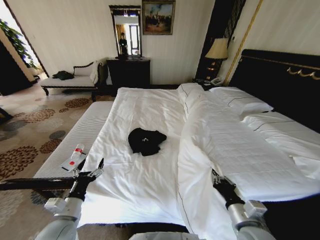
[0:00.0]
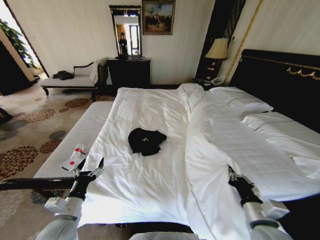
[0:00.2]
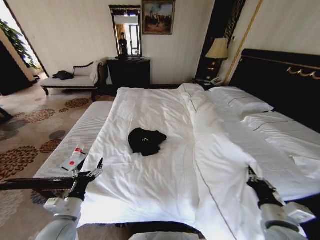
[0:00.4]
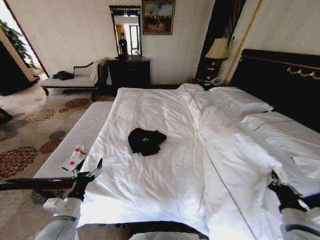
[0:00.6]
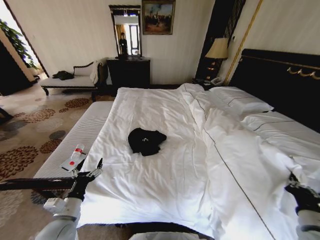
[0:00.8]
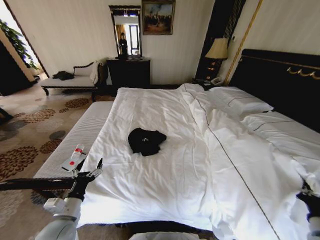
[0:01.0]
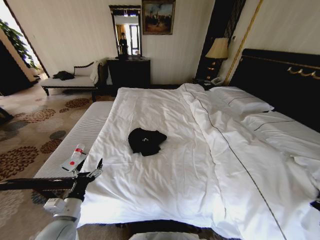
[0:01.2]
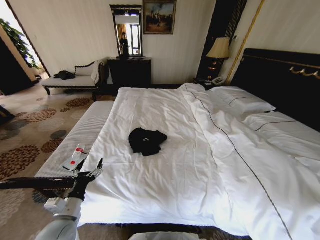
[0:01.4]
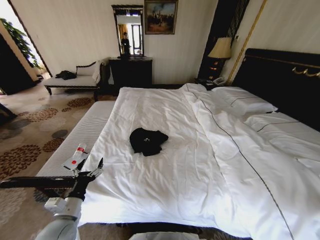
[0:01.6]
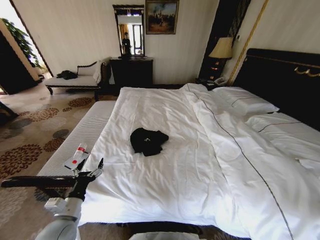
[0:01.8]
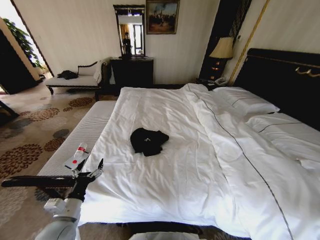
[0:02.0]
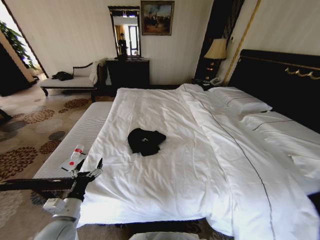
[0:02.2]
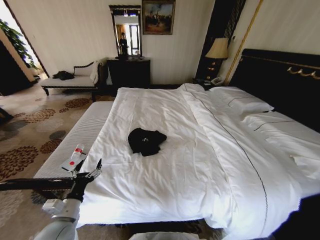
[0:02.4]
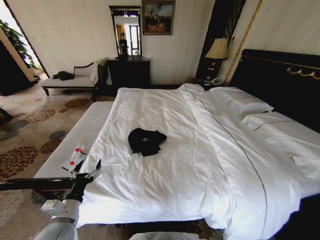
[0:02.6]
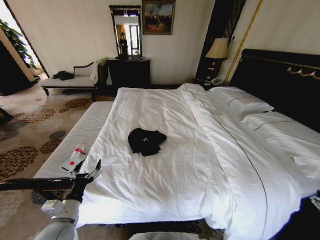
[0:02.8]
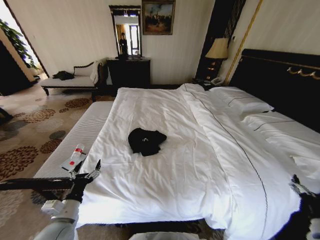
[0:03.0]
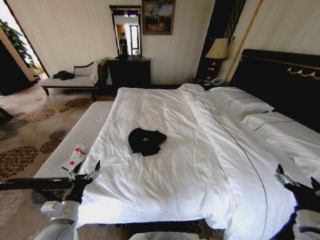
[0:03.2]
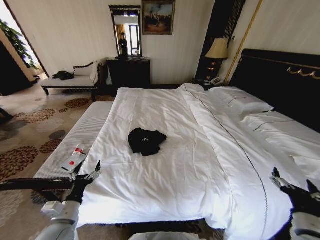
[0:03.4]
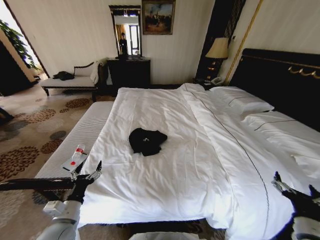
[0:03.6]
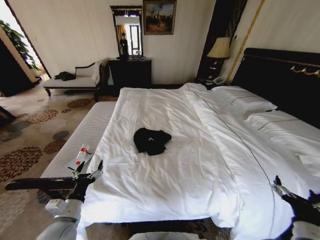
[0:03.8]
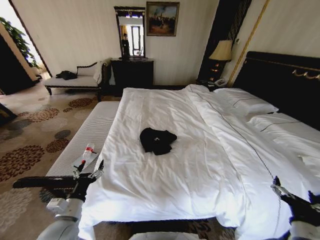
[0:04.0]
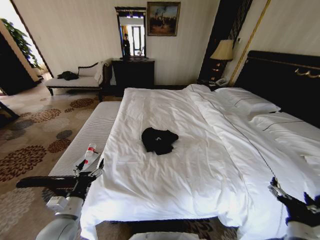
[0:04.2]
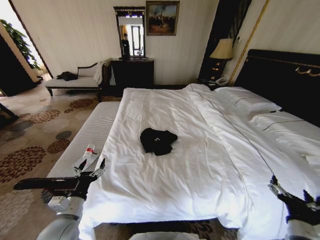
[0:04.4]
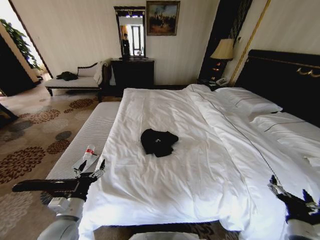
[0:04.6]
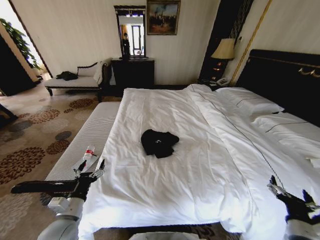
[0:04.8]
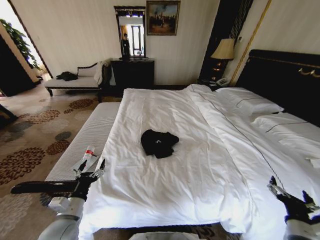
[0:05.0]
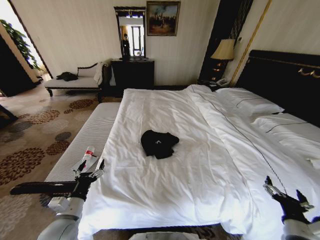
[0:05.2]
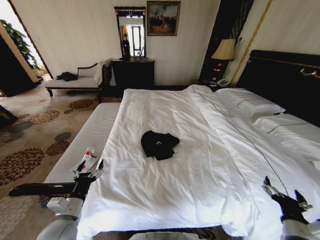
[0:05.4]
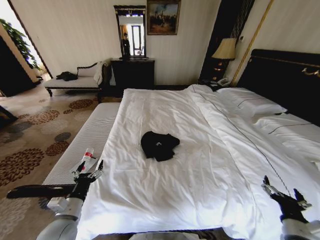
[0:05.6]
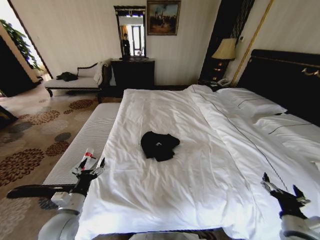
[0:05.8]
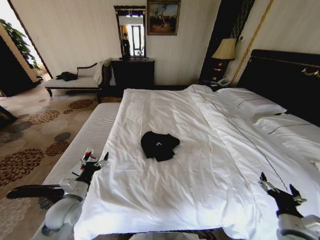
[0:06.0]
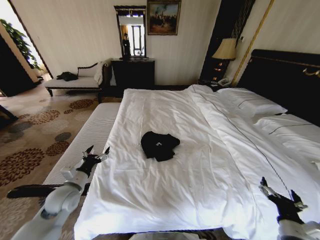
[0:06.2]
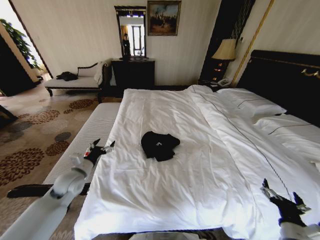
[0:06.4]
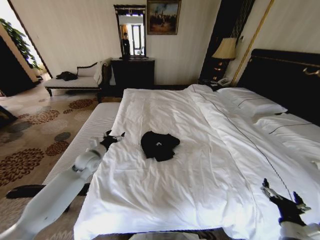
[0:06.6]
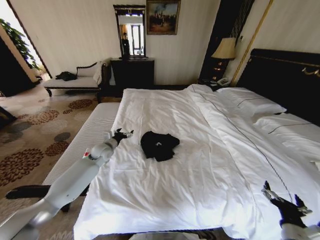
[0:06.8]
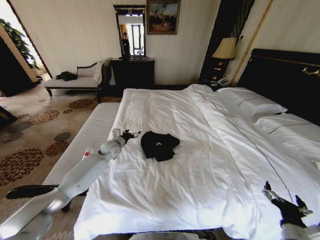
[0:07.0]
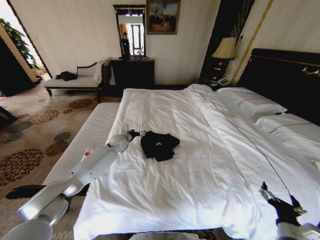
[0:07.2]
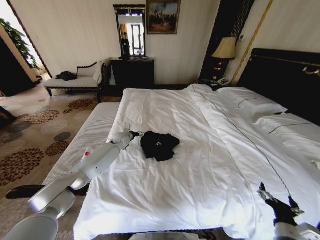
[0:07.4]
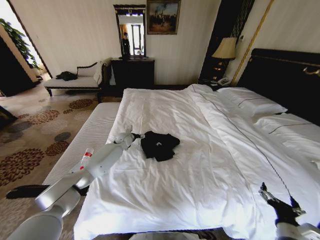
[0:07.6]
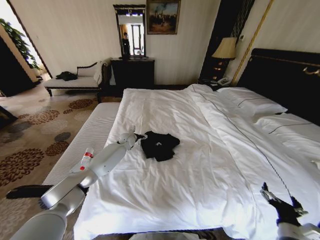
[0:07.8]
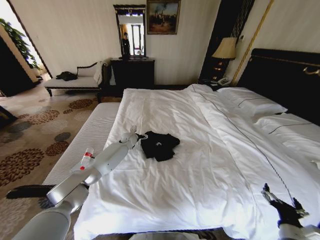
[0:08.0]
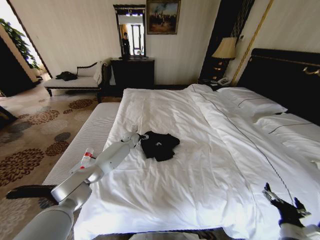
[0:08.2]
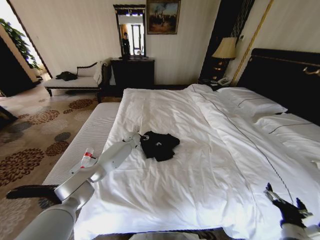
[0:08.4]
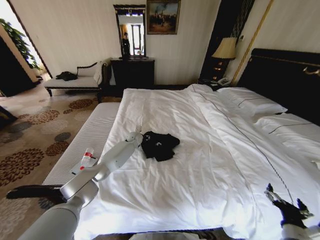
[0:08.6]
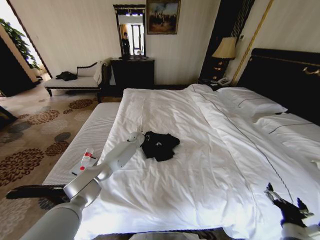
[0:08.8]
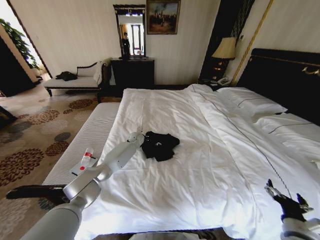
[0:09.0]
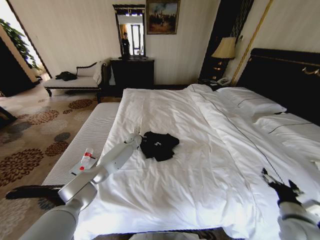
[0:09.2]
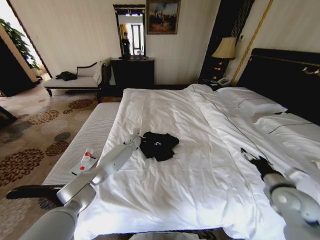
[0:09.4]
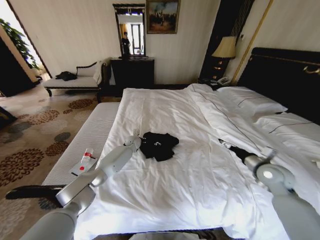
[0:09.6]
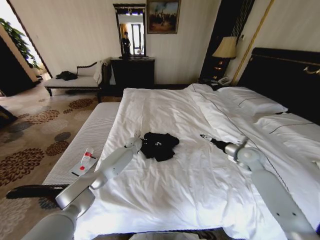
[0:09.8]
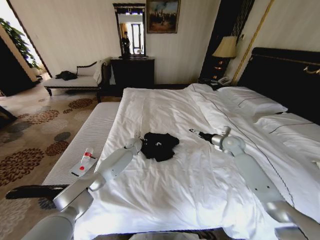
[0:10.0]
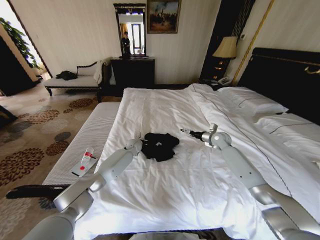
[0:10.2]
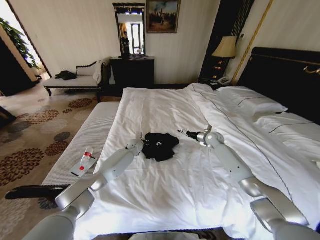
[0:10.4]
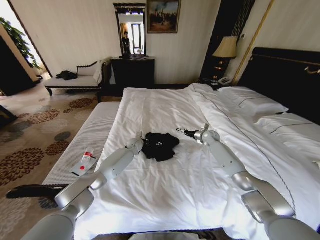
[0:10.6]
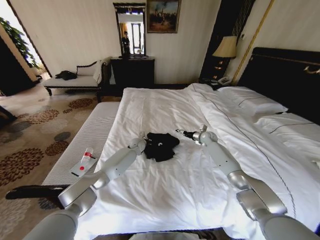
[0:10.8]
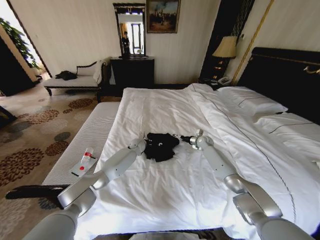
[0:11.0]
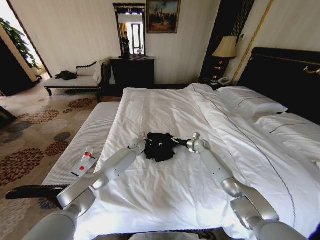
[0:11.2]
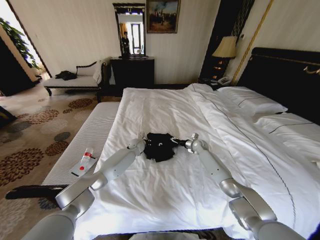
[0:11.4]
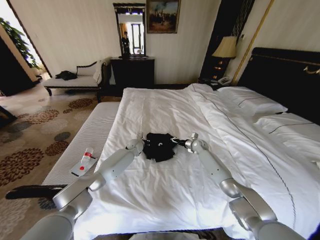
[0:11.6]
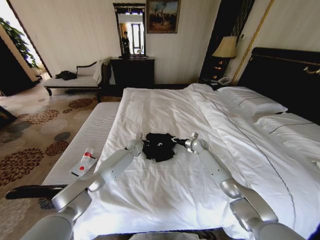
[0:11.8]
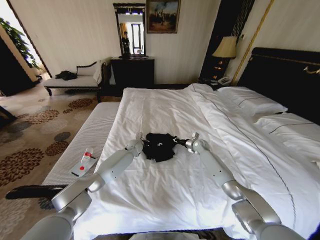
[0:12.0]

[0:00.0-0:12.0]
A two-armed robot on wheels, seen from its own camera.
Task of the whole recording: Fold the clothes on the bed.
0:00.0 to 0:01.6: The right gripper is displaced to the right by some 30 cm.
0:01.6 to 0:03.0: The right gripper heads to the left, covering about 10 cm, and opens.
0:03.0 to 0:04.4: The right gripper is displaced to the left by approximately 10 cm.
0:04.4 to 0:06.0: The left gripper is displaced forward by about 5 cm.
0:06.0 to 0:07.6: The left gripper travels forward and to the right by roughly 40 cm.
0:07.6 to 0:09.0: The left gripper moves to the right, approximately 5 cm, and closes its fingers.
0:09.0 to 0:10.4: The right gripper moves forward, some 50 cm.
0:10.4 to 0:12.0: The right gripper travels downward and to the left by approximately 10 cm, and closes up.

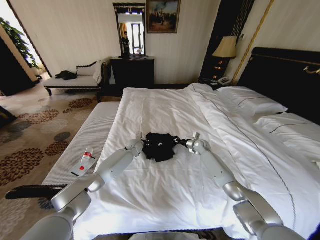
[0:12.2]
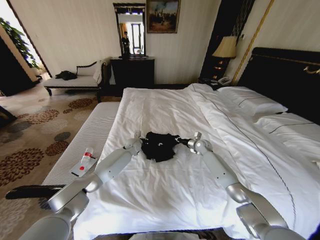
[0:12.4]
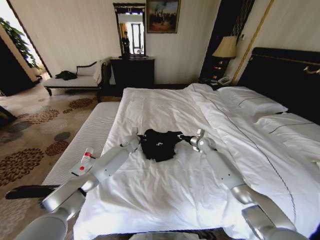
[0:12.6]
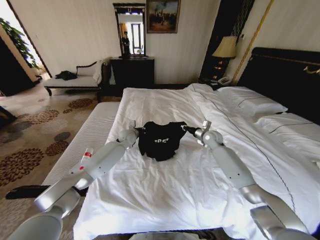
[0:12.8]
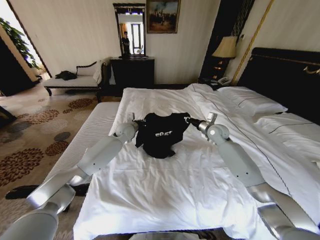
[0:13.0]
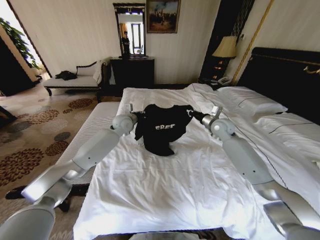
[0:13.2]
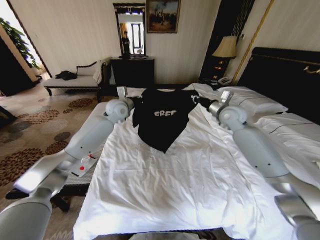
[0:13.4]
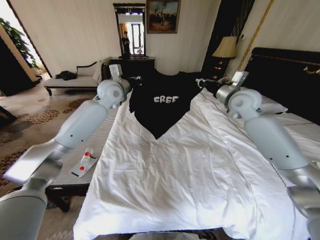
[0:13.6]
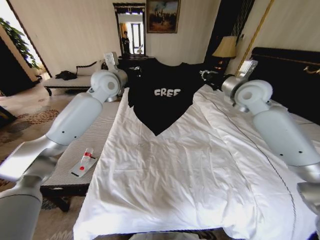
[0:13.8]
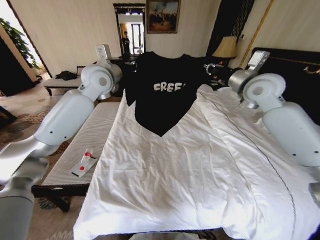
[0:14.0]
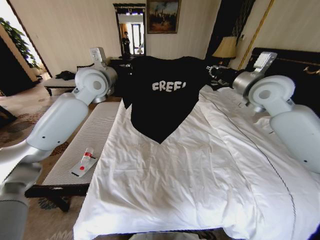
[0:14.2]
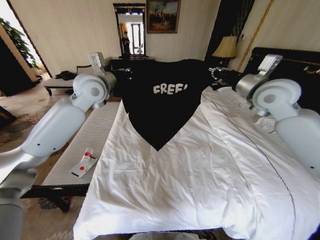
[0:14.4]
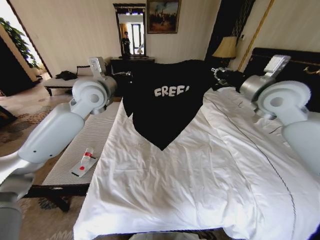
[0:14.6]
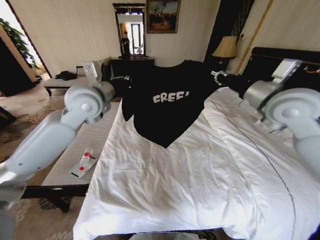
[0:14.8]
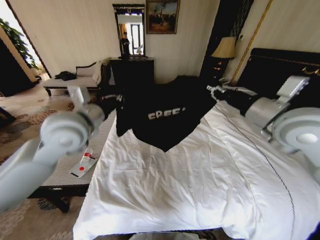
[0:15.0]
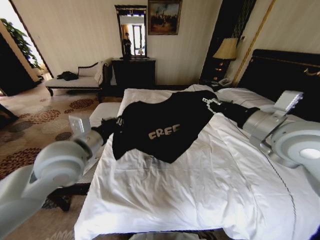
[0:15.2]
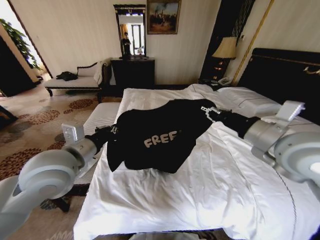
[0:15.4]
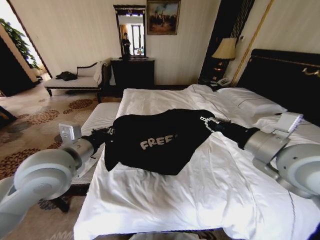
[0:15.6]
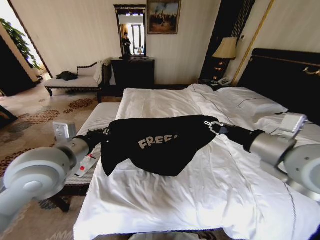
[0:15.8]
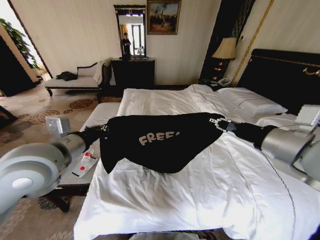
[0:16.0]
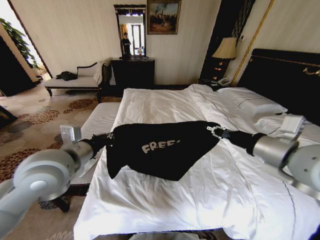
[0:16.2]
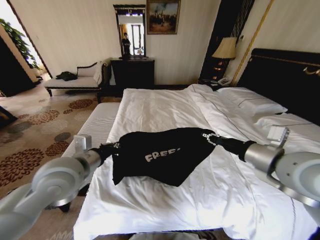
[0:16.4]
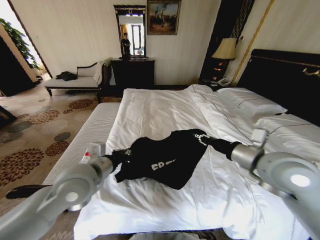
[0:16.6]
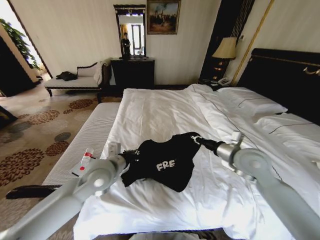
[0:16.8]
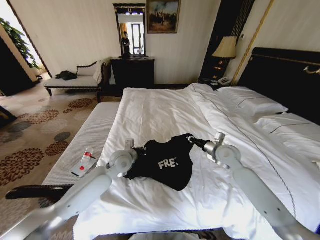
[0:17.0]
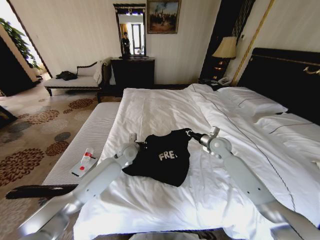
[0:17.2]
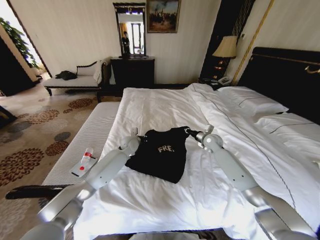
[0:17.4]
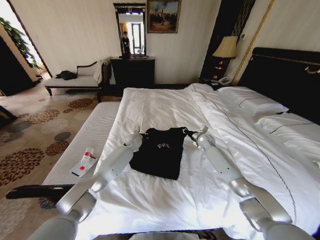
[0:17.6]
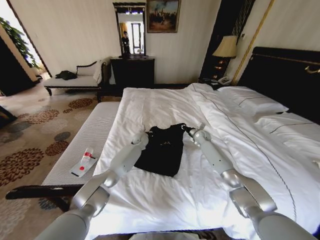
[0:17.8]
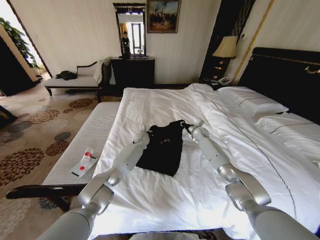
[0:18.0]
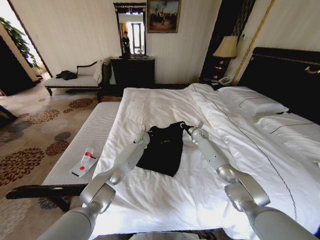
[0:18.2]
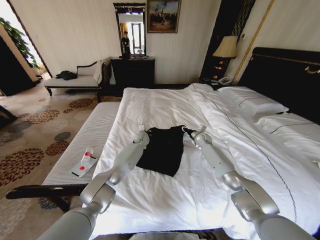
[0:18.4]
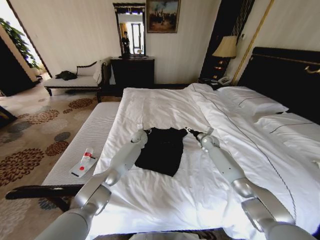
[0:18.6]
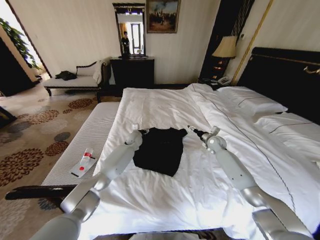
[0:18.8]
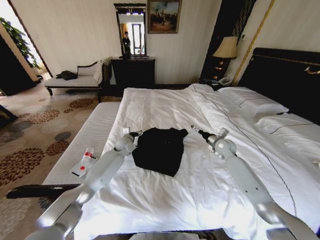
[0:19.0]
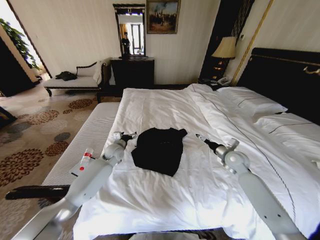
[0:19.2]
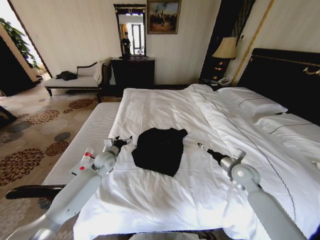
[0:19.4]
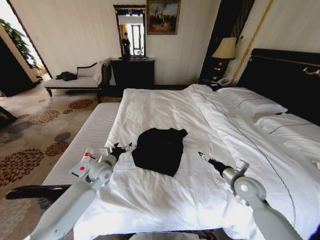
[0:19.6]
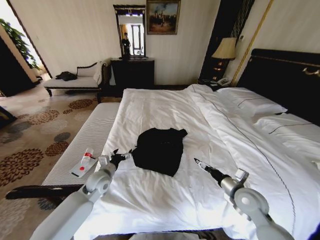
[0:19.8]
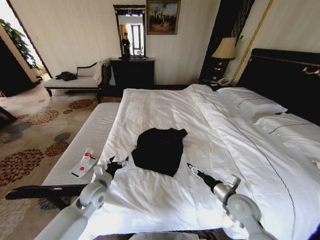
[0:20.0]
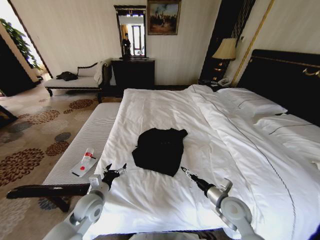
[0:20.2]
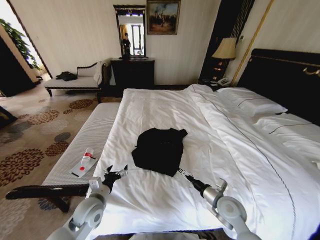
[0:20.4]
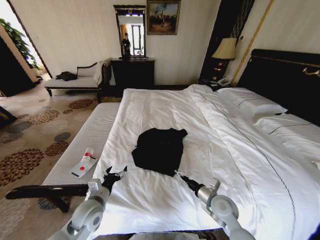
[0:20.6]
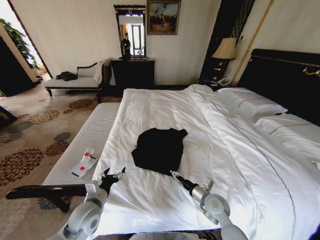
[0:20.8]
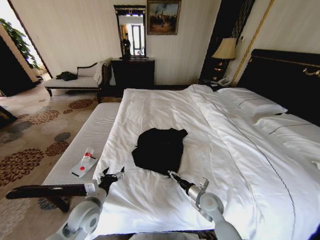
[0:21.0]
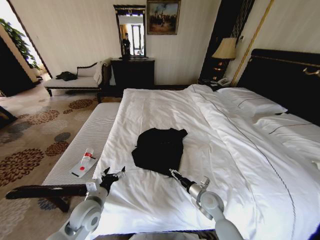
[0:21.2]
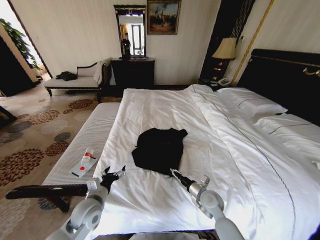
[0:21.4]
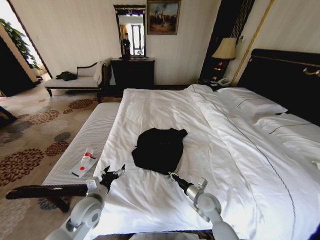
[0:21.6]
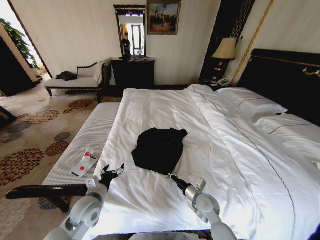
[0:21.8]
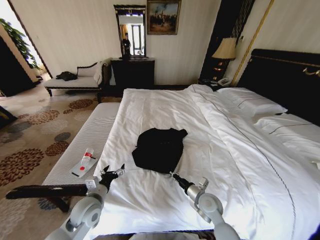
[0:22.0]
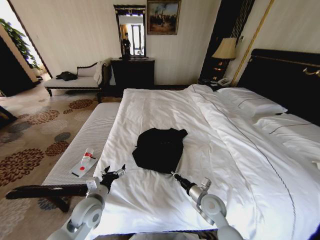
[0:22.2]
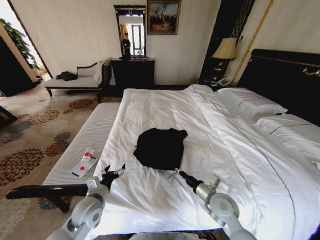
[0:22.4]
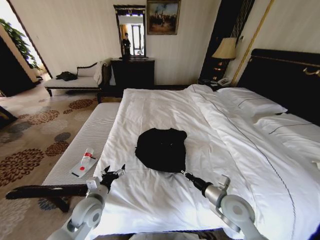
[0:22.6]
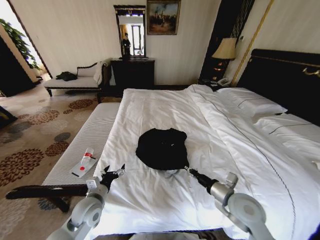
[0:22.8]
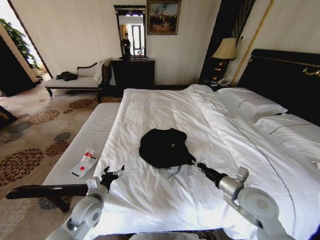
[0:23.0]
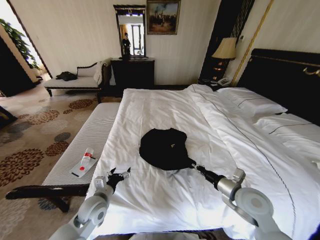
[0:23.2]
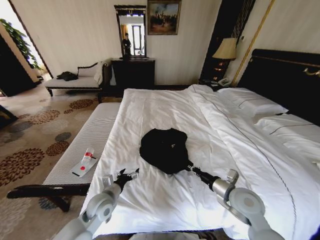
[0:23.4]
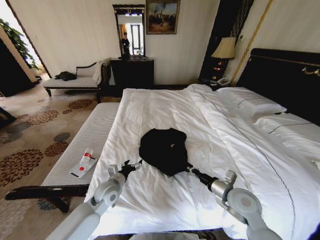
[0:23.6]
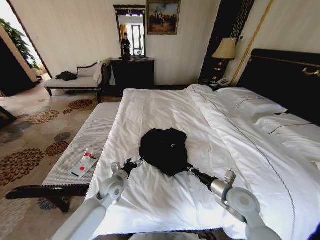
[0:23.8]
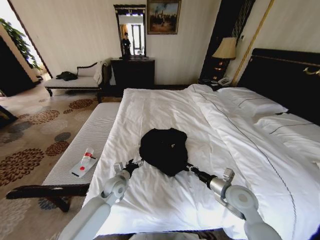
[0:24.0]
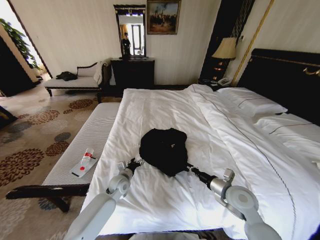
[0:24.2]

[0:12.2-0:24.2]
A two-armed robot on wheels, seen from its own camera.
Task of the whole recording: Fold the clothes on the bed.
0:12.2 to 0:13.8: The two grippers go about 35 cm upward.
0:13.8 to 0:15.2: Both grippers move backward, approximately 25 cm.
0:15.2 to 0:16.6: Both grippers move downward, approximately 5 cm.
0:16.6 to 0:18.2: The two grippers go approximately 40 cm forward and downward.
0:18.2 to 0:19.8: The right gripper shifts approximately 35 cm backward, and opens. Meanwhile the left gripper shifts approximately 30 cm backward and to the left, and opens its fingers.
0:19.8 to 0:21.2: The left gripper moves backward, approximately 10 cm. Meanwhile the right gripper moves to the left and downward, roughly 15 cm.
0:21.2 to 0:22.6: The right gripper moves upward, some 10 cm, and closes up.
0:22.6 to 0:24.2: The left gripper heads forward, to the right and downward, covering roughly 15 cm.
